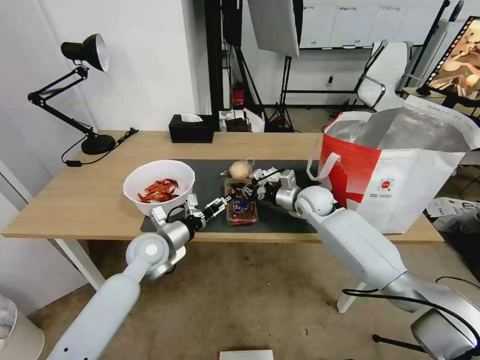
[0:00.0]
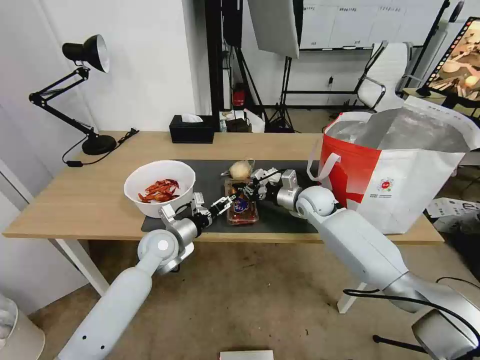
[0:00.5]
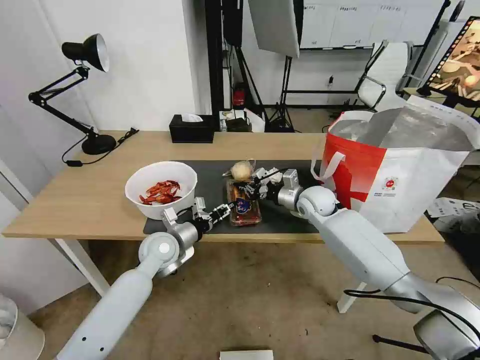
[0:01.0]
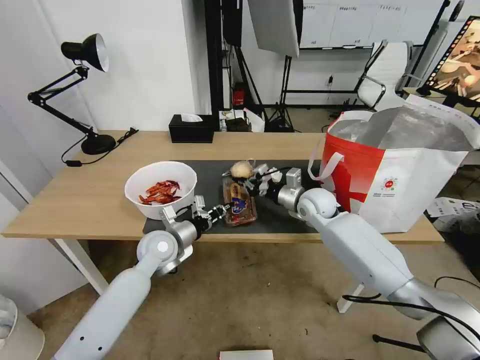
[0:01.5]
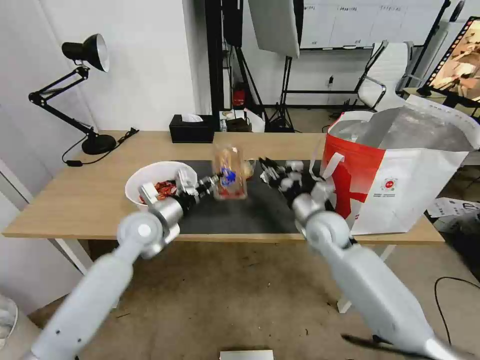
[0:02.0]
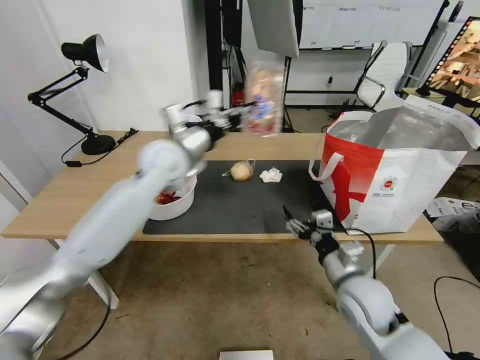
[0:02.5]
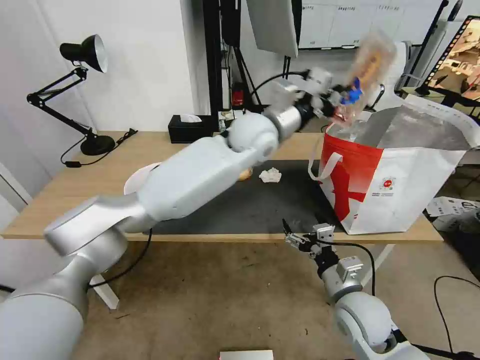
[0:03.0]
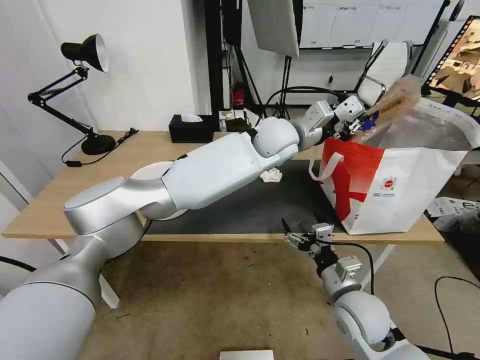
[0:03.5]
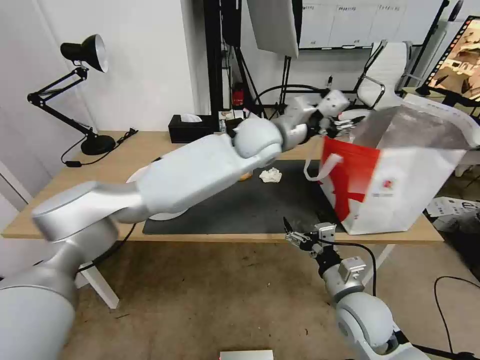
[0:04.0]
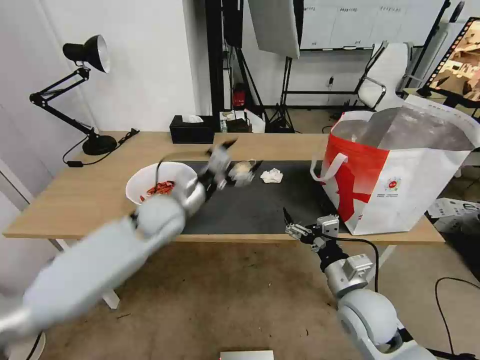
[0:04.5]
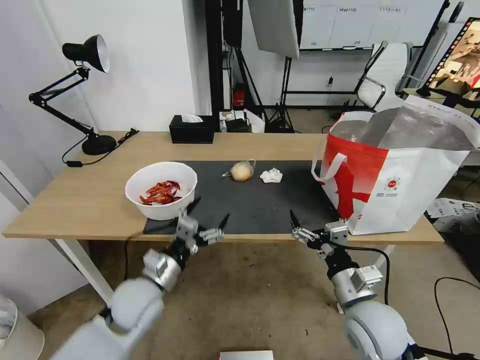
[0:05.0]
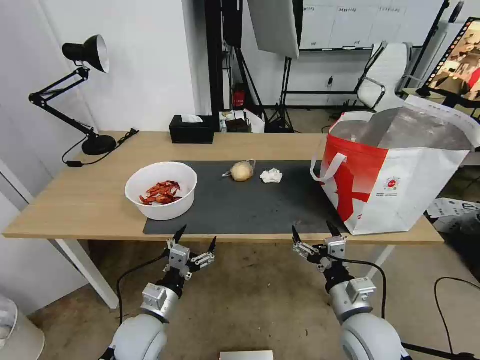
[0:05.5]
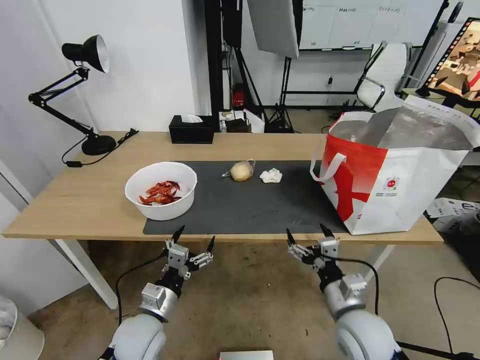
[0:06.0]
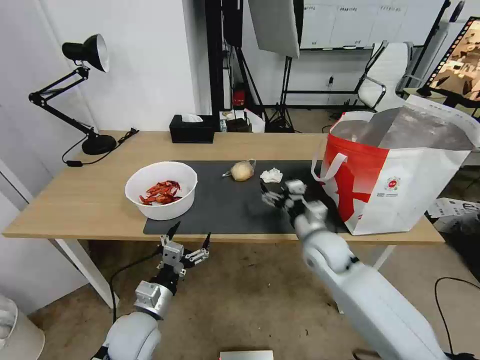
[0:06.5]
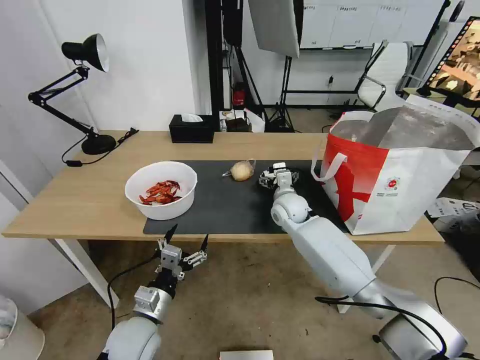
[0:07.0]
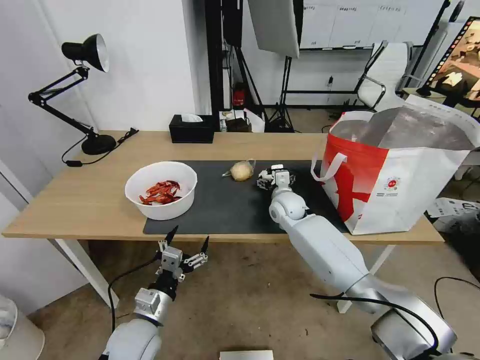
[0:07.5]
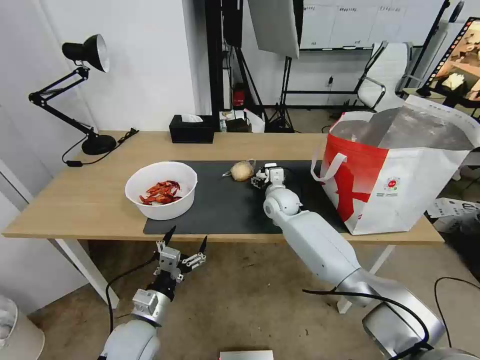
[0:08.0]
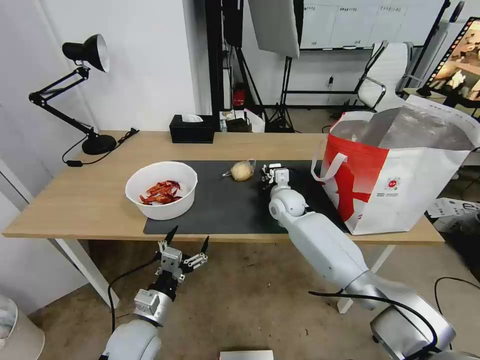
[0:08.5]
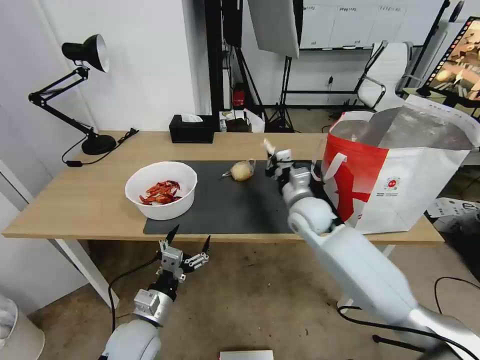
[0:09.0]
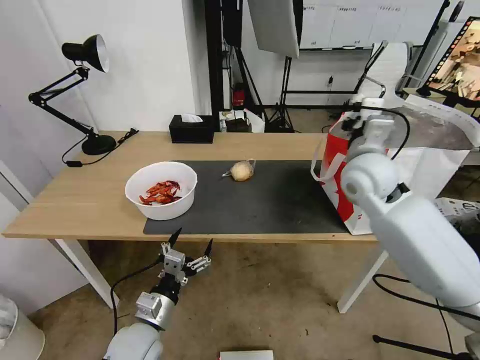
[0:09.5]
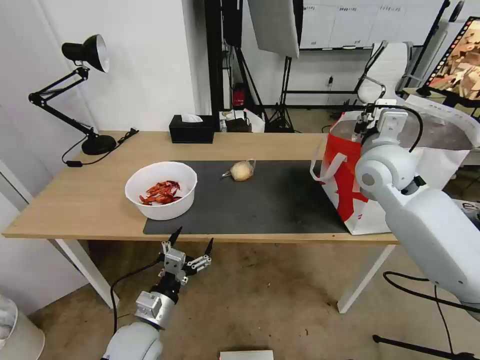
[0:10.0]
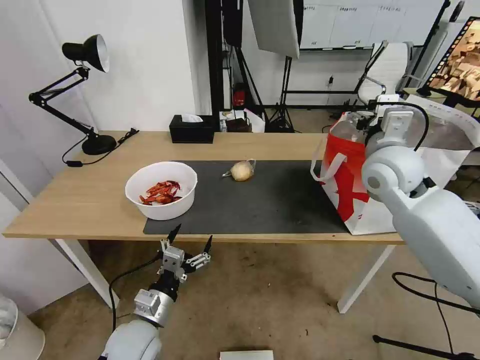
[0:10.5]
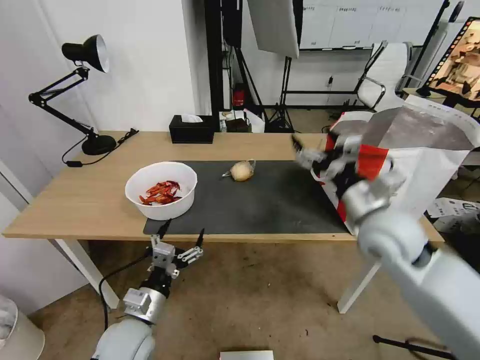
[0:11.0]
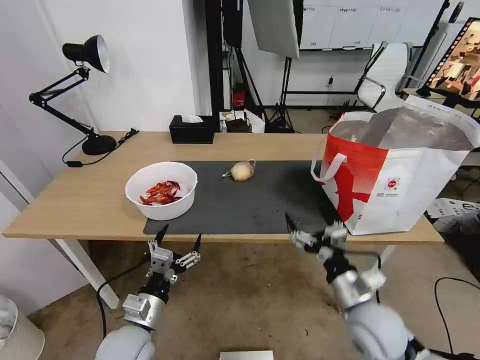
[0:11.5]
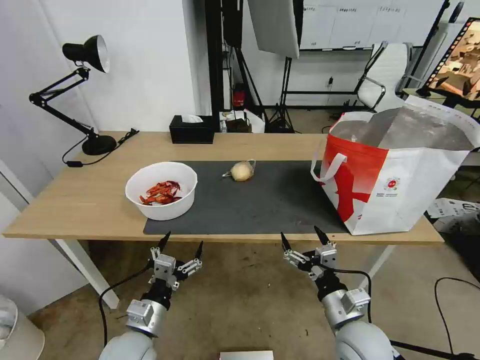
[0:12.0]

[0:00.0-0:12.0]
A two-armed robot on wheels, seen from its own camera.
Task of the whole recording: Pick up the trash from the table and place it into the takeout bag.
0:00.0 to 0:02.0: The left gripper travels upward by about 5 cm, and closes up. The right gripper is displaced backward by some 10 cm.
0:02.0 to 0:04.0: The left gripper is displaced to the right, upward and forward by some 30 cm, and opens its fingers, while the right gripper shifts about 20 cm backward, and opens.
0:04.0 to 0:06.0: The left gripper heads downward, backward and to the left, covering approximately 50 cm, and opens its fingers.
0:06.0 to 0:08.0: The right gripper moves forward, roughly 30 cm.
0:08.0 to 0:10.0: The right gripper heads upward, to the right and backward, covering roughly 30 cm, and closes.
0:10.0 to 0:12.0: The right gripper heads downward and backward, covering approximately 35 cm, and opens.

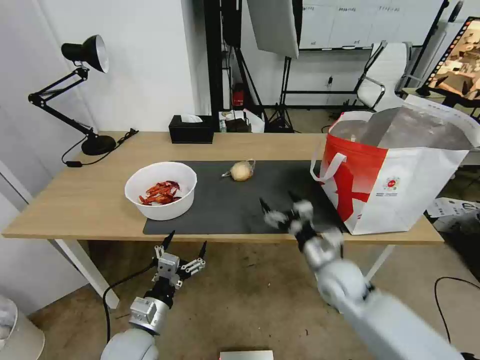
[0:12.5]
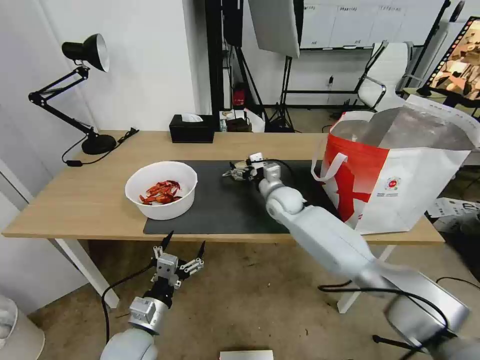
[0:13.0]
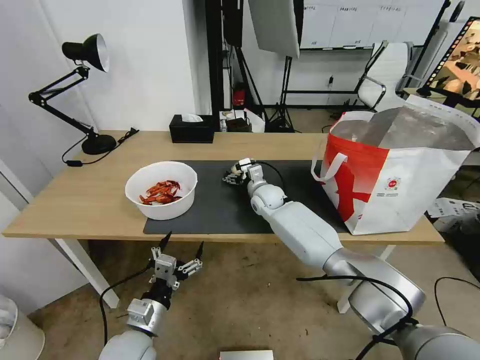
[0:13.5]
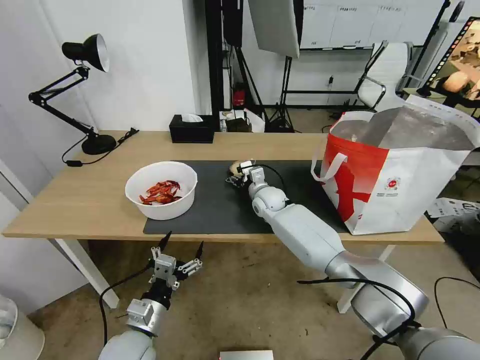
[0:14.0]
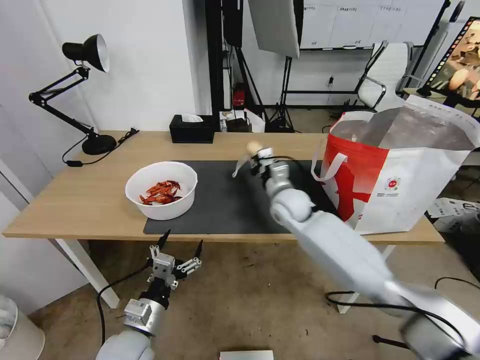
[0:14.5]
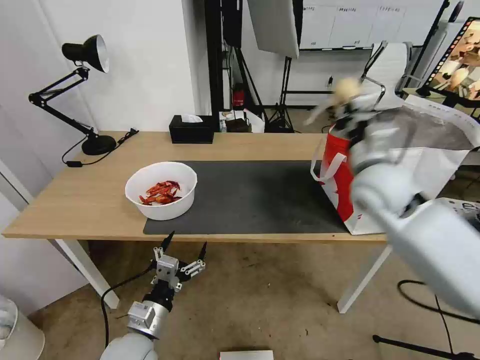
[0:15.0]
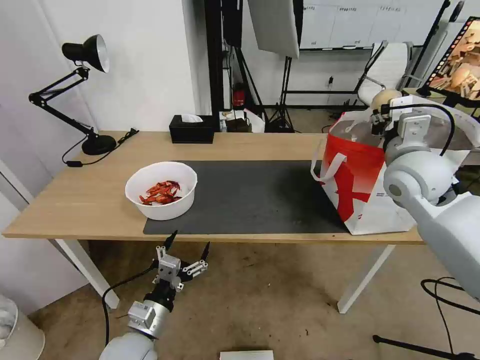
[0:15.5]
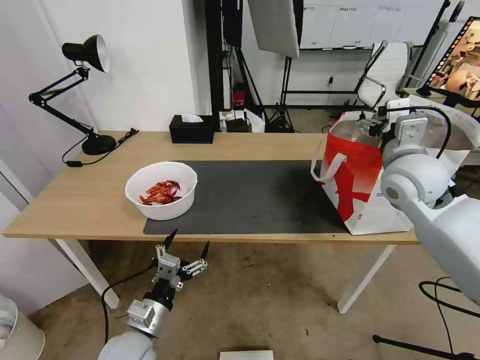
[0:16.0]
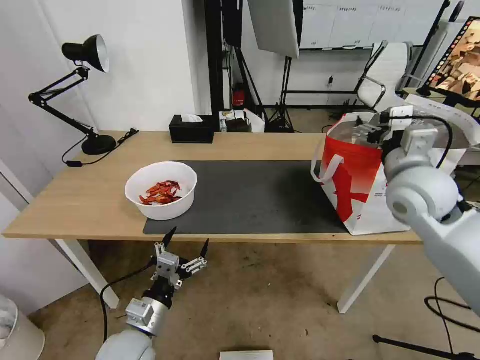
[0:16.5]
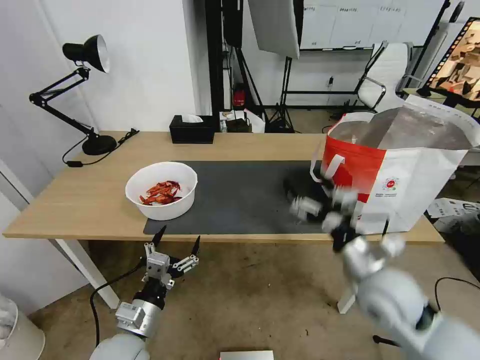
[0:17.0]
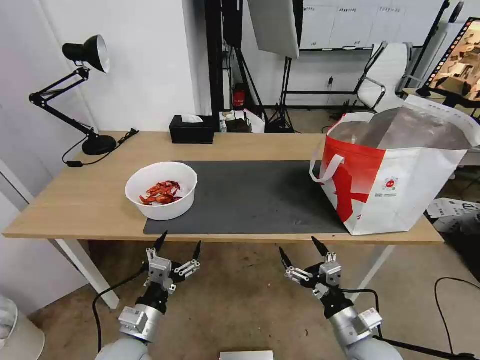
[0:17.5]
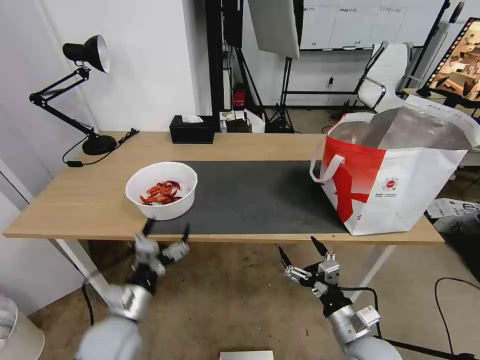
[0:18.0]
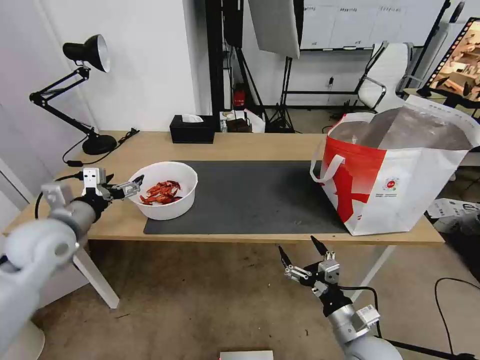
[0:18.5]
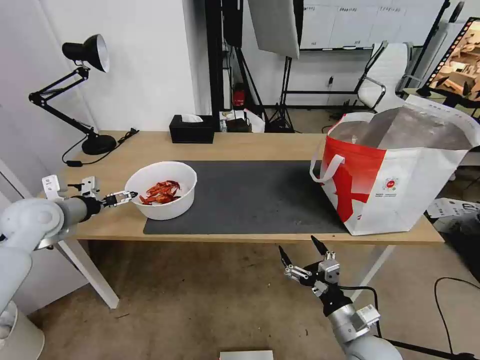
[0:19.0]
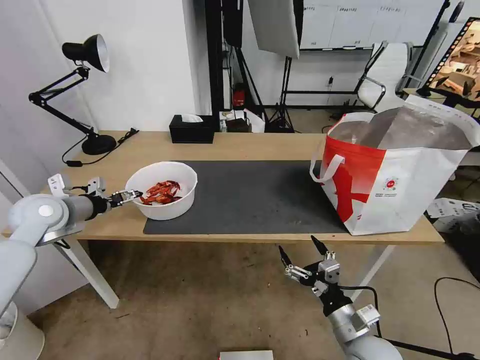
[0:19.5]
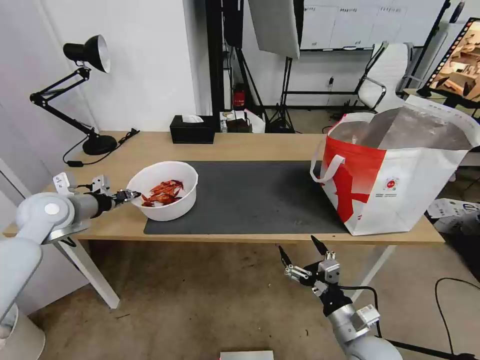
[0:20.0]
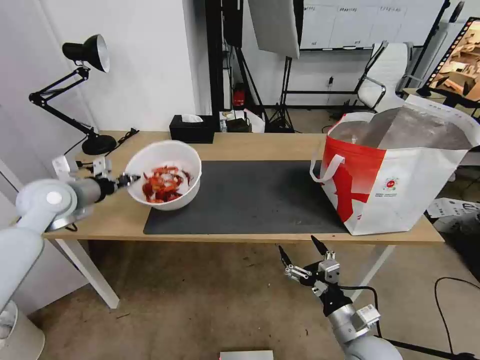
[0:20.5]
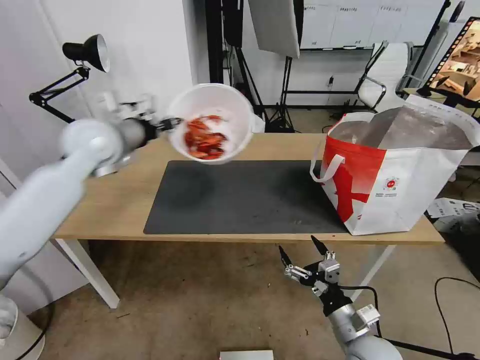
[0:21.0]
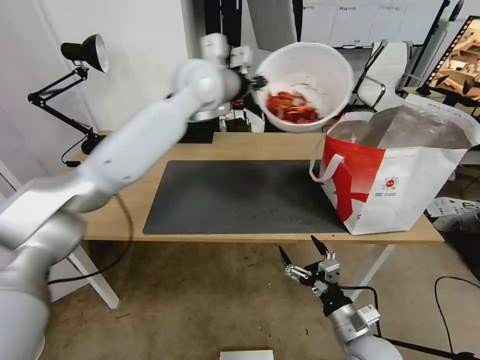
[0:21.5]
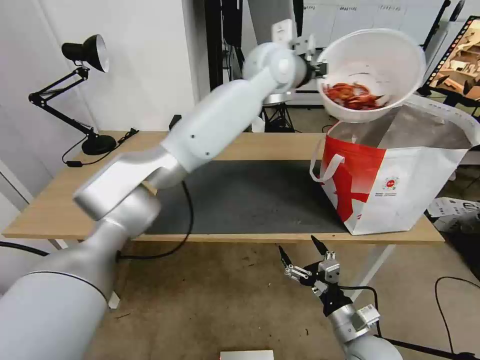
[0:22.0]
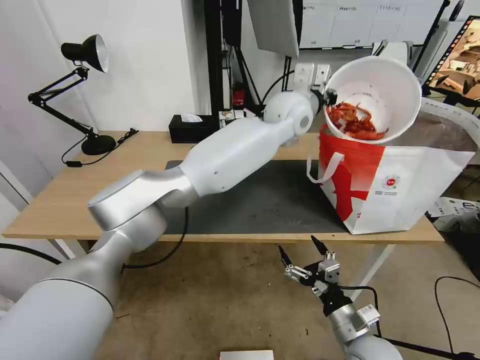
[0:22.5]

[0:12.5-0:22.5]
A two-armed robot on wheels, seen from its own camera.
Task of the whole recording: Pick up the trash from the table and place it into the takeout bag.
0:12.5 to 0:14.5: The right gripper goes about 20 cm forward and to the left, and closes up.
0:14.5 to 0:16.5: The right gripper shifts roughly 25 cm to the right, upward and backward, and opens its fingers.
0:16.5 to 0:18.5: The right gripper heads downward and backward, covering about 35 cm. Meanwhile the left gripper shifts approximately 25 cm upward, to the left and forward.
0:18.5 to 0:20.5: The left gripper moves forward, about 10 cm, and closes.
0:20.5 to 0:22.5: The left gripper travels to the right by some 50 cm.

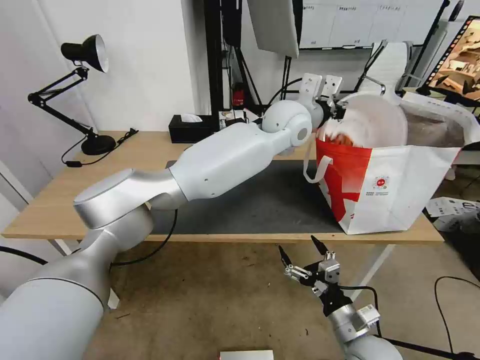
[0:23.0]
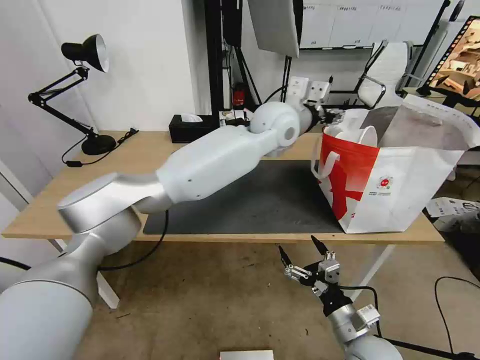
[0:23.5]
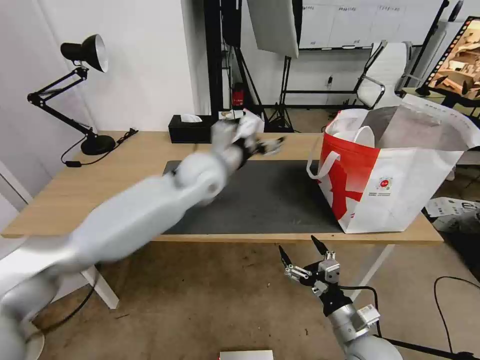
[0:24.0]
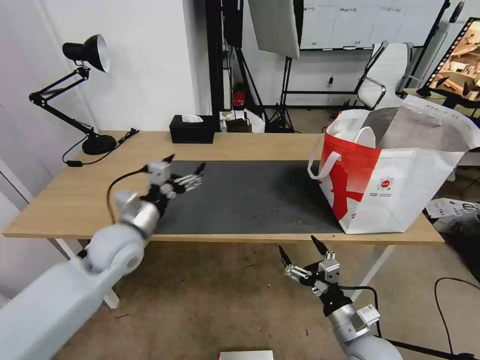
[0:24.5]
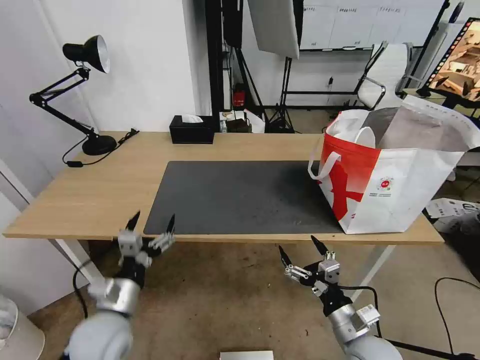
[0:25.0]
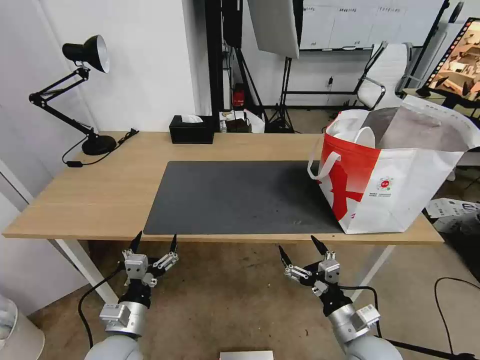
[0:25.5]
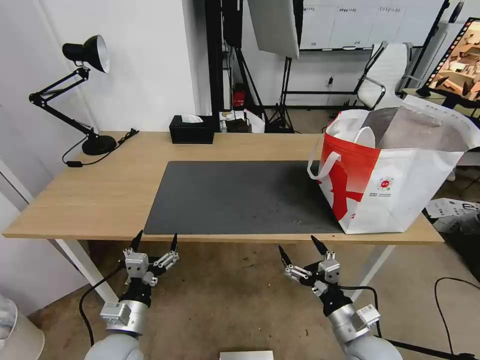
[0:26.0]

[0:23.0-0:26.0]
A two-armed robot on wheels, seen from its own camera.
Task of the whole recording: Pick up the trash from the table and place it into the takeout bag.
0:23.0 to 0:24.5: The left gripper is displaced to the left, backward and downward by some 40 cm, and opens.
0:24.5 to 0:26.0: The left gripper heads backward and downward, covering some 20 cm.
